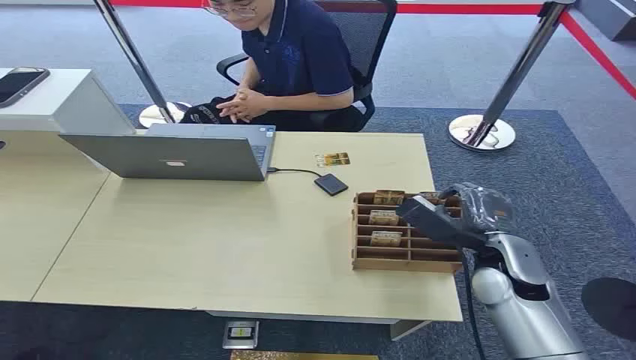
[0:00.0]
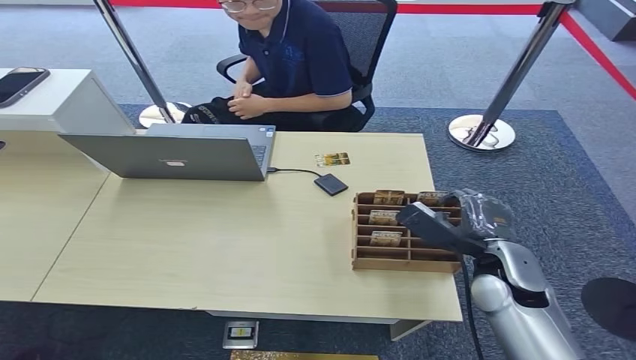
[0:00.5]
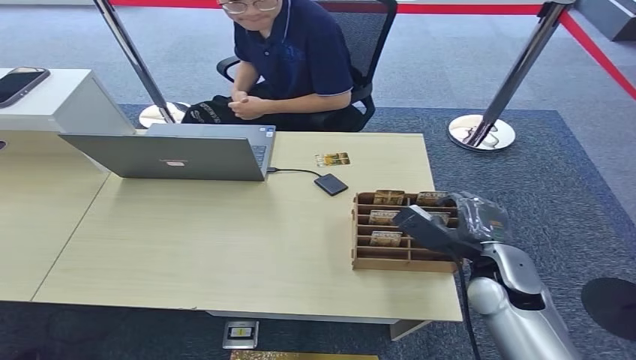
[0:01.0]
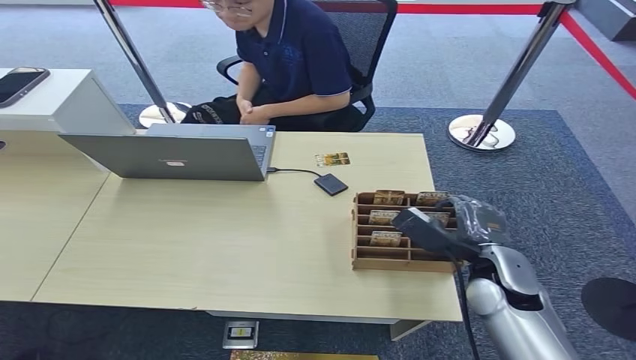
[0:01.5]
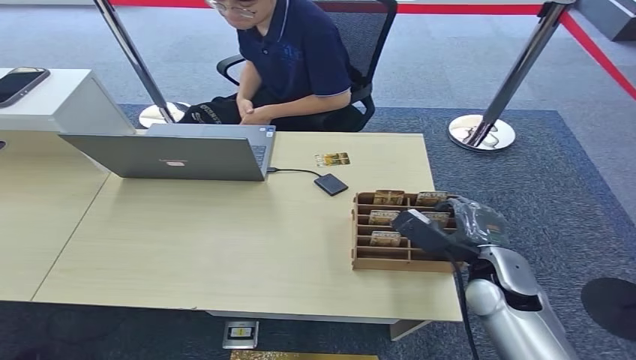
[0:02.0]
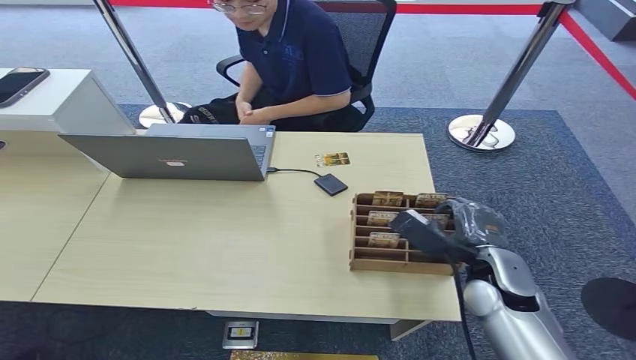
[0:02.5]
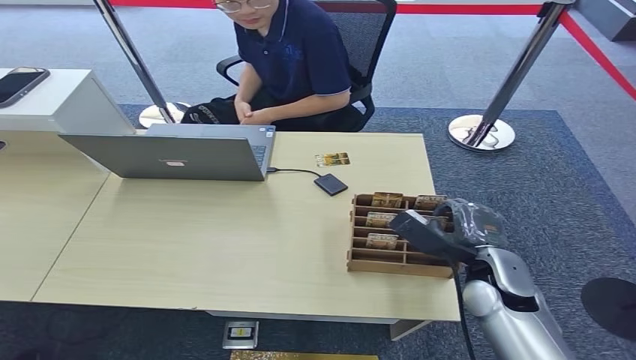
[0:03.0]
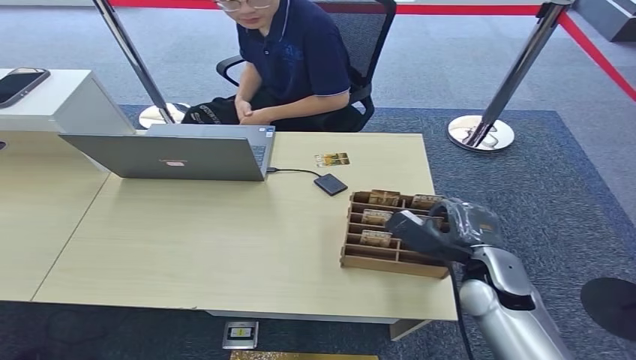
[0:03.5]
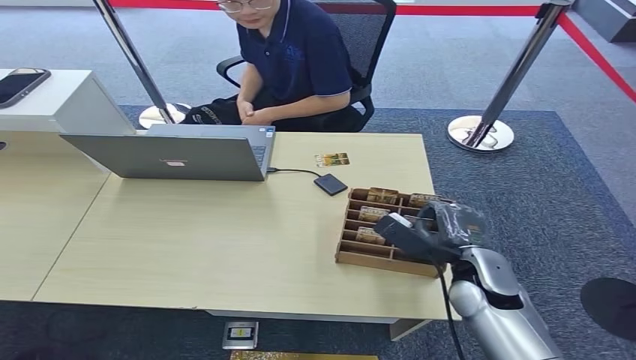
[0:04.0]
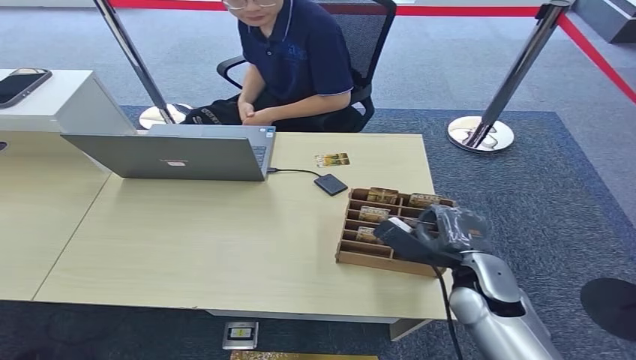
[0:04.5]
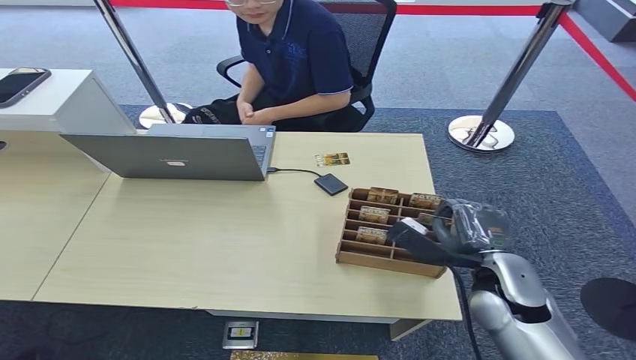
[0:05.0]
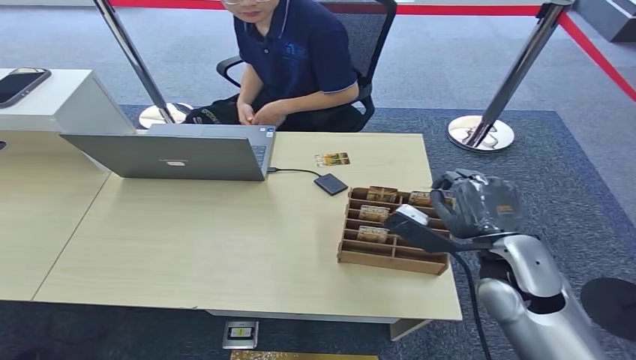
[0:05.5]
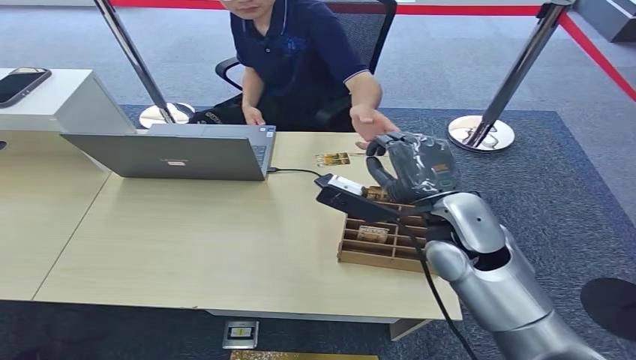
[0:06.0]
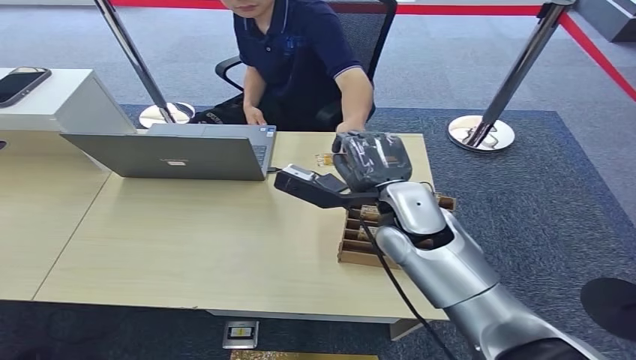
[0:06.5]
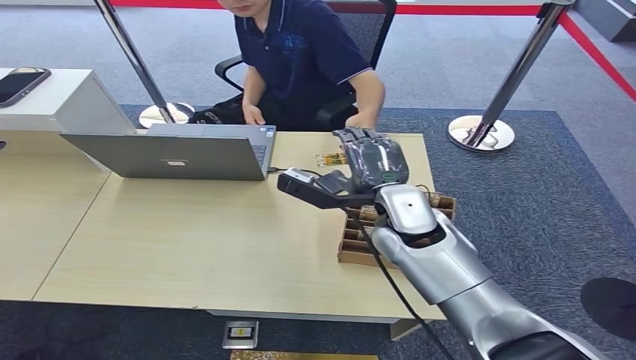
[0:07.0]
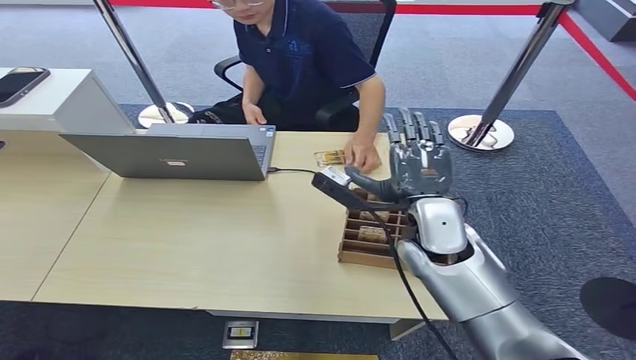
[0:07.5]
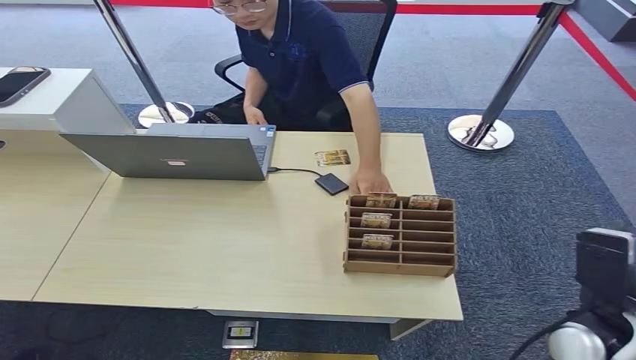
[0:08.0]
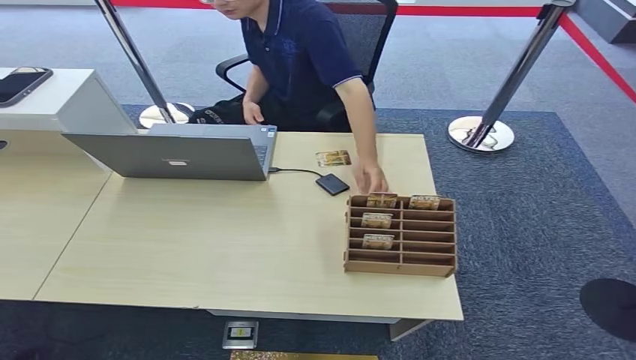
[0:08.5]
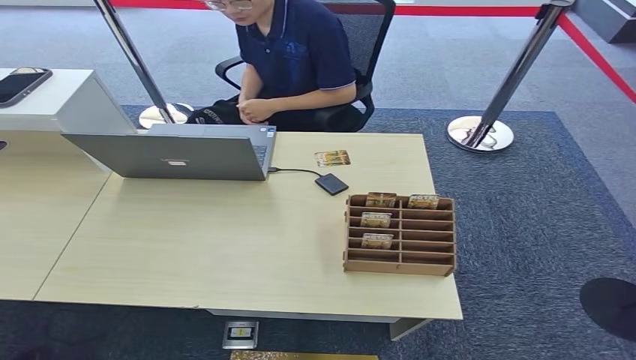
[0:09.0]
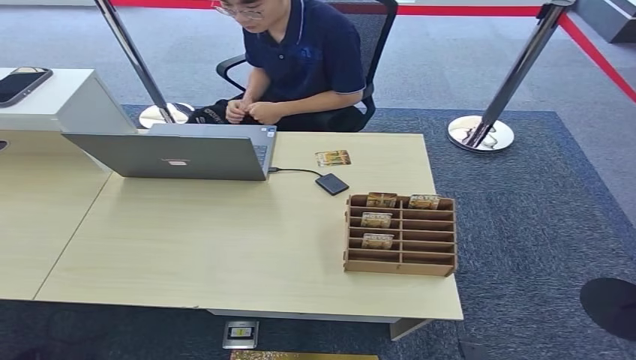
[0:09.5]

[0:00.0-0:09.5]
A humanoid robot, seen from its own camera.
Step, 0:00.0 to 0:05.5: Pick up the key card from the card box.
Step, 0:06.0 to 0:09.5: Hand the key card to the target.
0:02.0 to 0:04.0: The hands move only a little.
0:04.0 to 0:05.5: The right hand is displaced upward by roughly 10 cm.
0:05.5 to 0:07.5: The right hand shifts some 10 cm to the left and forward.
0:07.5 to 0:09.5: The right hand is displaced downward and backward by about 40 cm.
